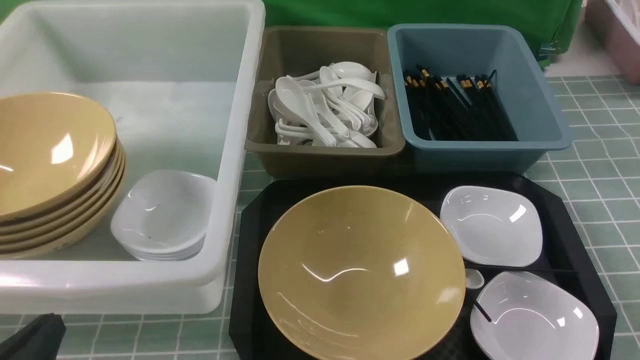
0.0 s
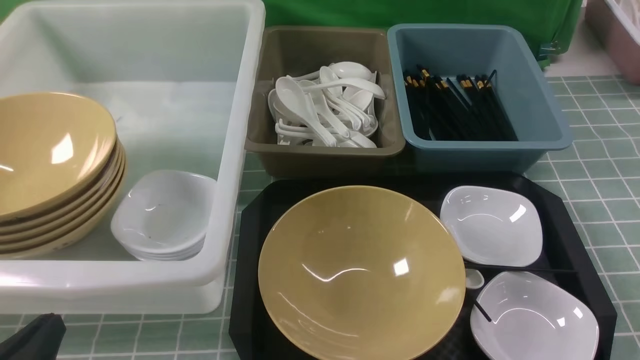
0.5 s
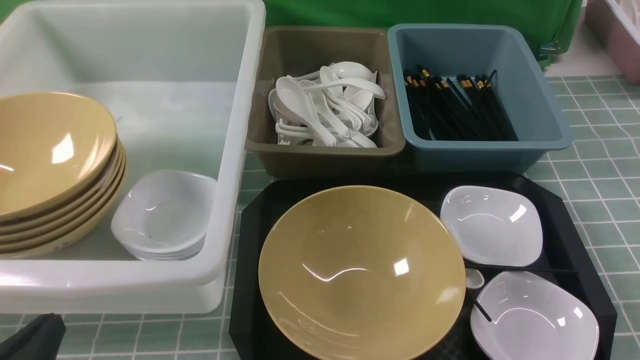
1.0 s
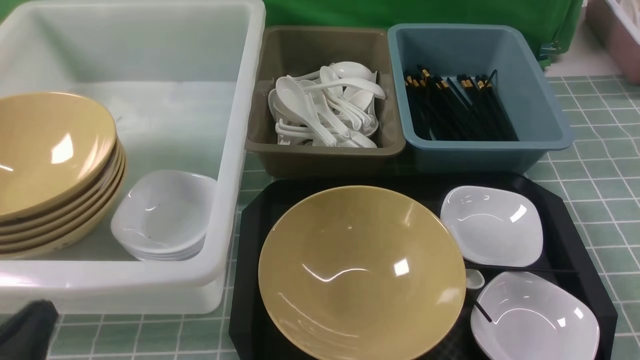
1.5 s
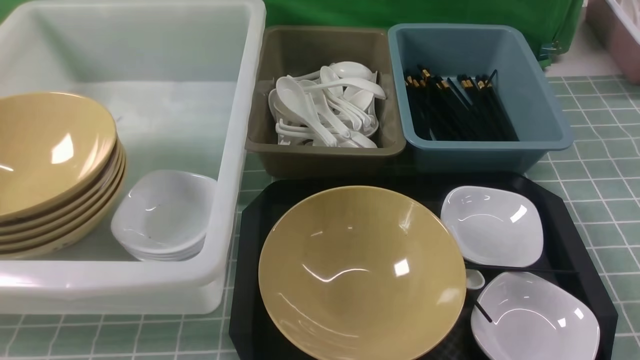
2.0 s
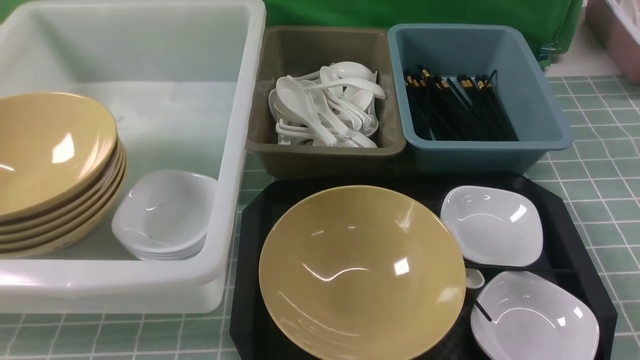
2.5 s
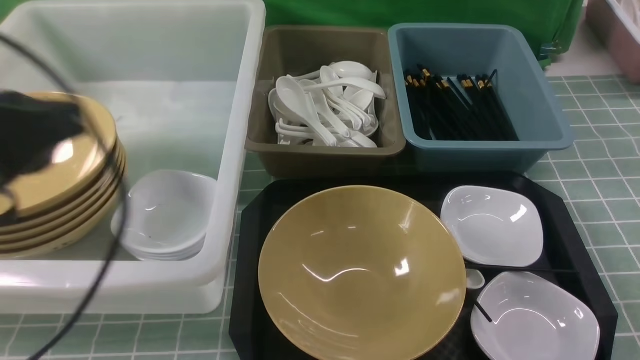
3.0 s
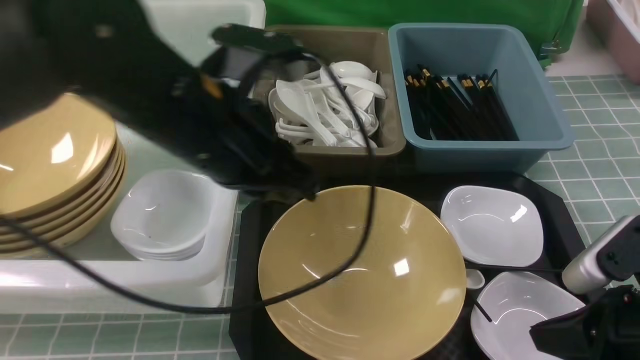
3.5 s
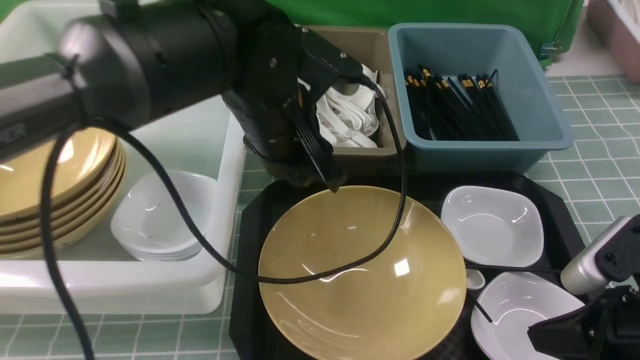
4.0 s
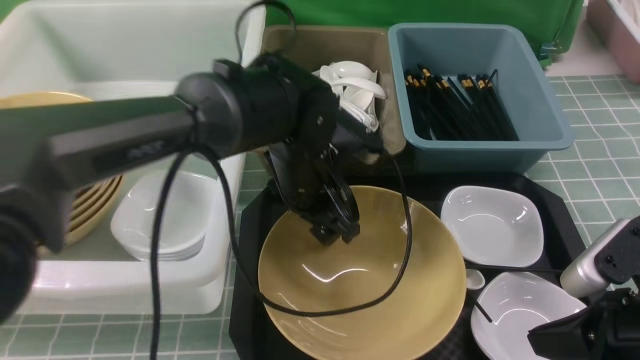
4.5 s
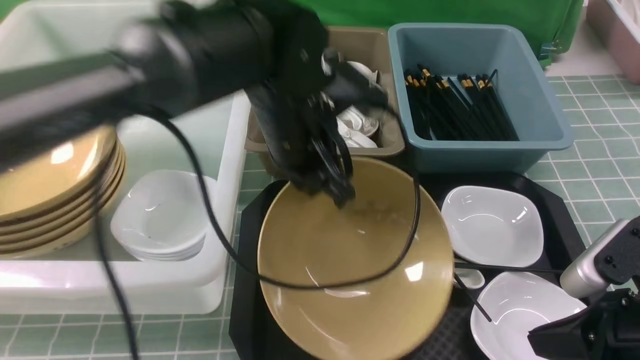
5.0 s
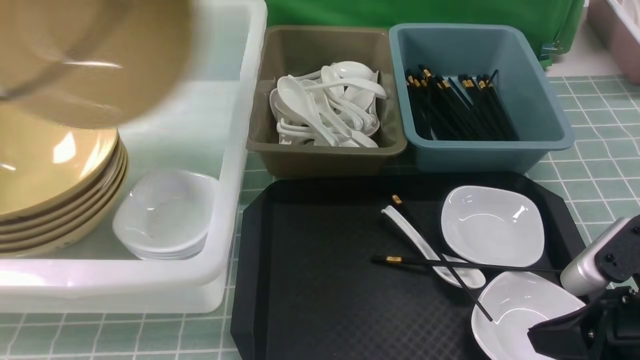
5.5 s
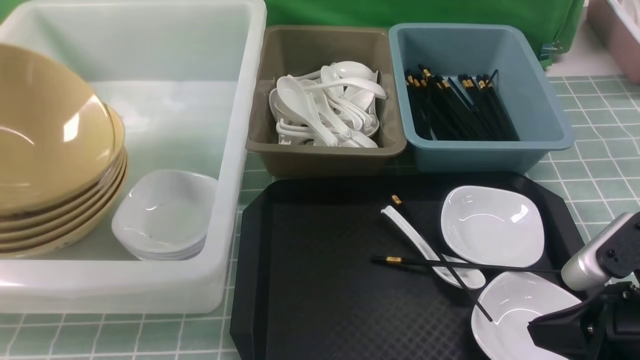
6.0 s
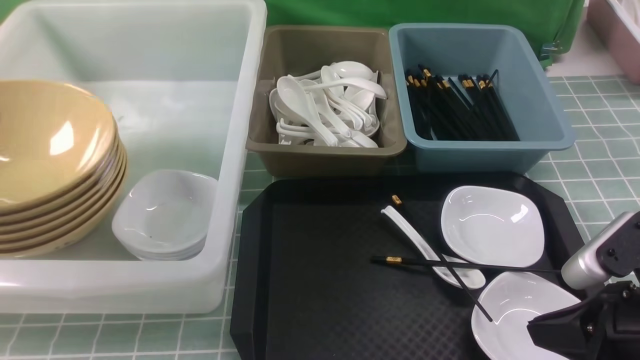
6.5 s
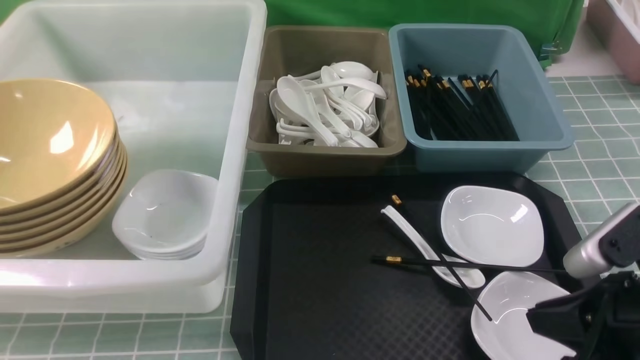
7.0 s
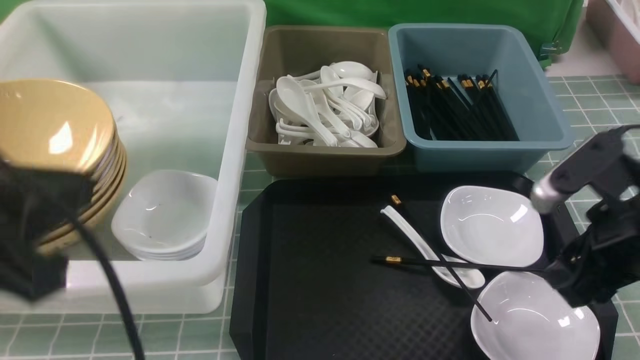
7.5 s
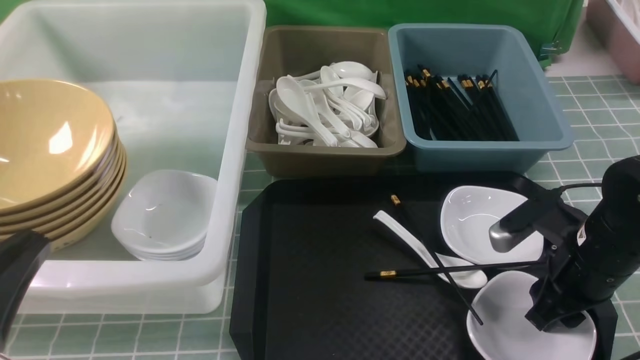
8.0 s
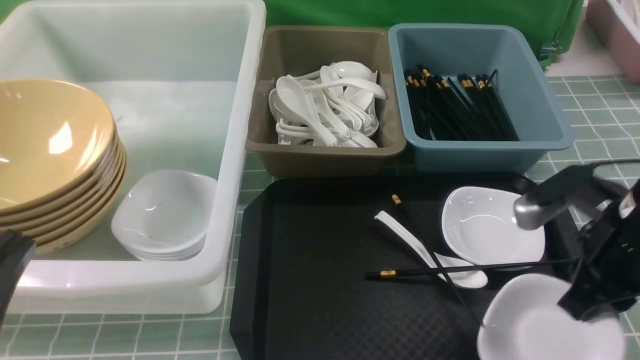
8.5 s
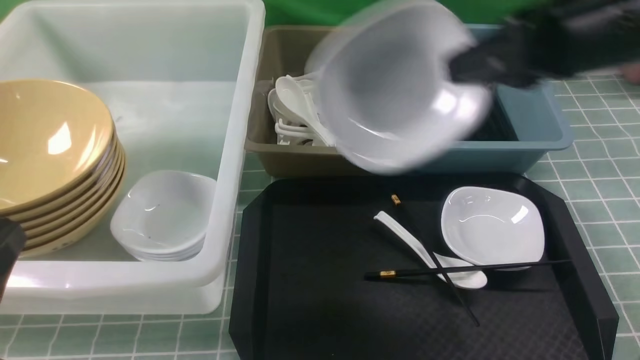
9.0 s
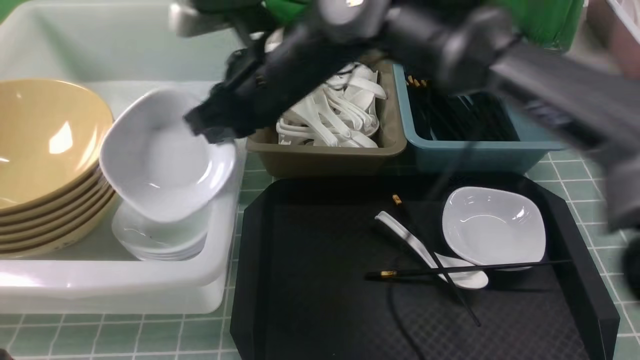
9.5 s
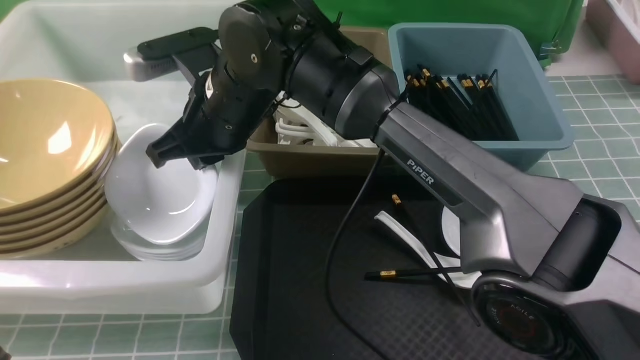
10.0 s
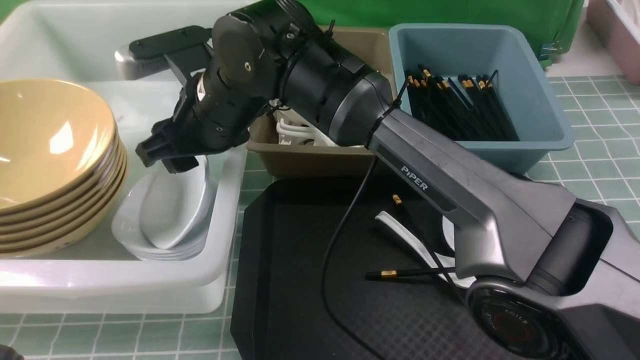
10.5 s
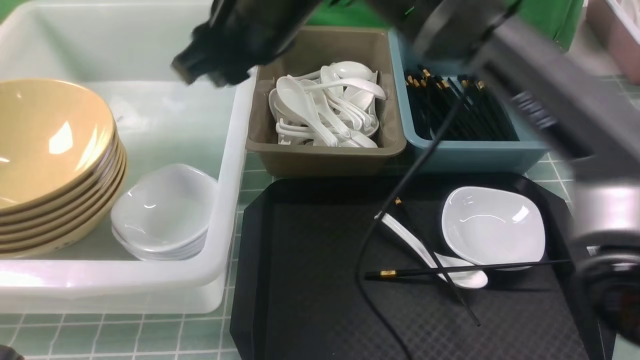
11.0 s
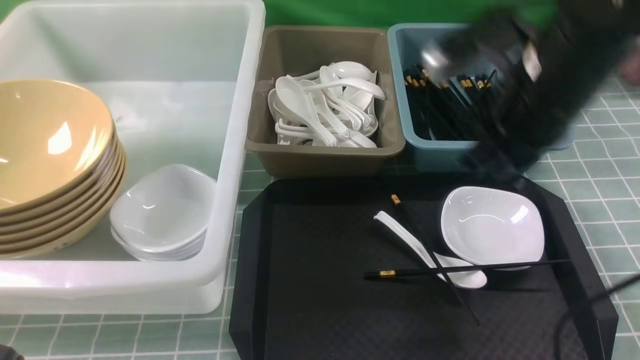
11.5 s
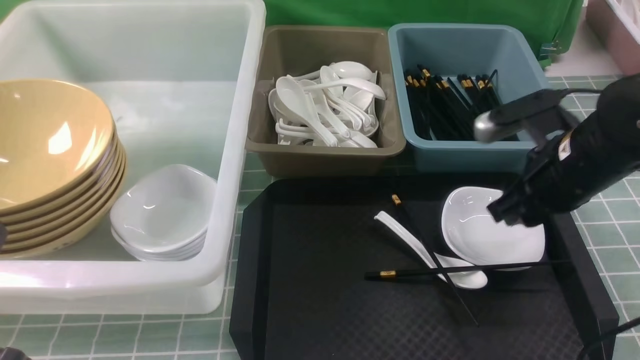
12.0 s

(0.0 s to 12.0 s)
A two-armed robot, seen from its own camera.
Task of the whole recording: on blue table put chopsticks spoon bowls plates into blue grey white boxes.
Step, 0.0 s - 5.0 s: use the left arm to grab the yellow noodle bowl on the left.
Step, 5.5 s - 6.0 s: use the left arm to put the noodle bowl into the large storage box on the left.
Step, 7.0 s - 8.0 s: use the right arm to grab the plate.
Step, 8.5 s - 10.0 s: use the right arm to put the plate into the large storage box on the left.
0.0 s - 2.0 s: The left gripper moves upward, some 10 cm.
2.0 s - 4.0 s: The left gripper goes some 35 cm forward and to the right, and opens up; the right gripper shifts about 10 cm forward and to the left.
4.0 s - 6.0 s: The left gripper goes approximately 35 cm to the left, and closes.
6.0 s - 8.0 s: The right gripper heads forward and downward, covering approximately 10 cm, and opens, while the left gripper travels backward and to the right by roughly 25 cm, and opens, then closes once more.
8.0 s - 10.0 s: The right gripper travels to the left by roughly 35 cm, and closes its fingers.
10.0 s - 12.0 s: The right gripper shifts some 30 cm to the right, and opens its fingers.

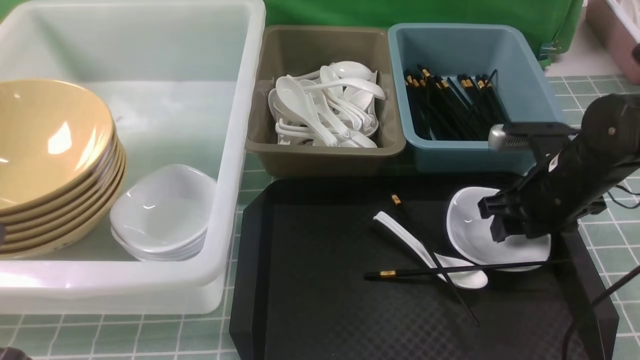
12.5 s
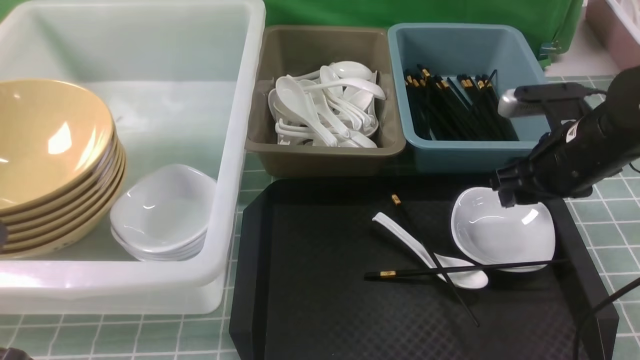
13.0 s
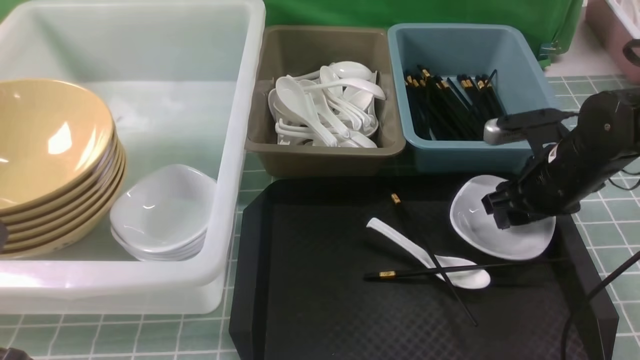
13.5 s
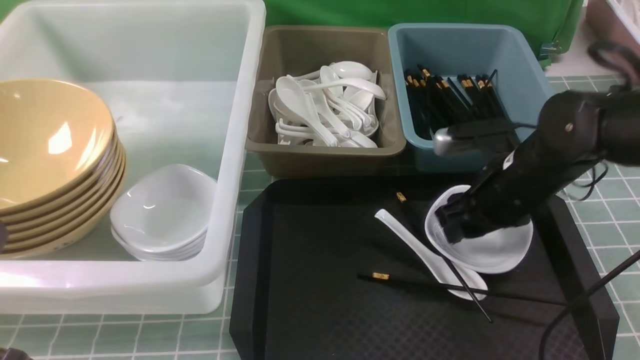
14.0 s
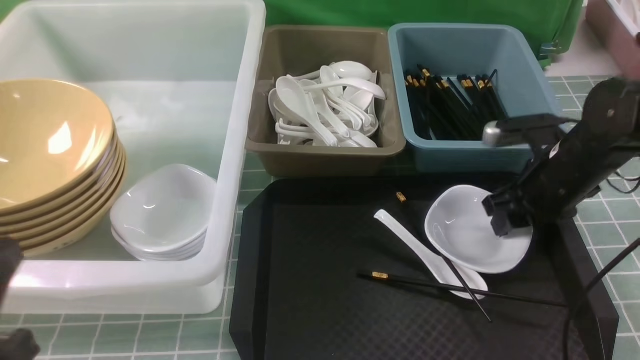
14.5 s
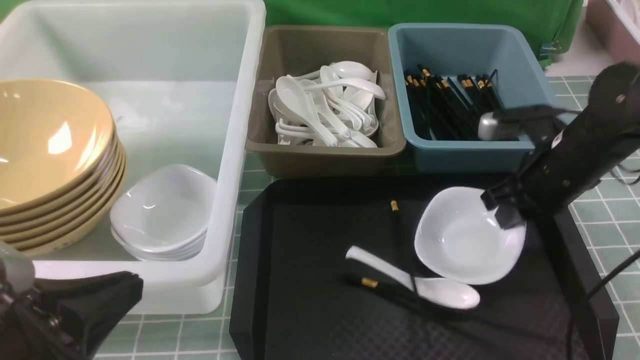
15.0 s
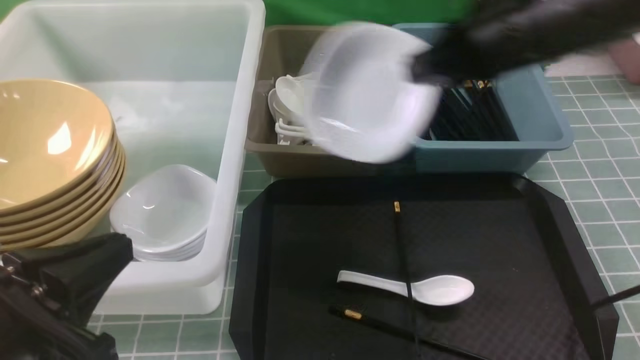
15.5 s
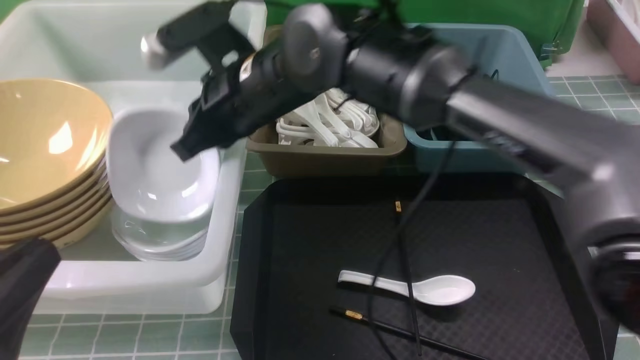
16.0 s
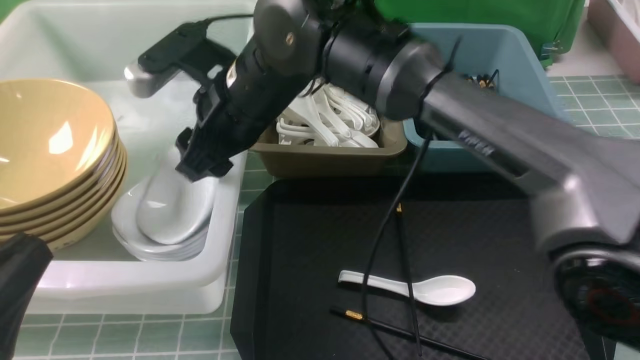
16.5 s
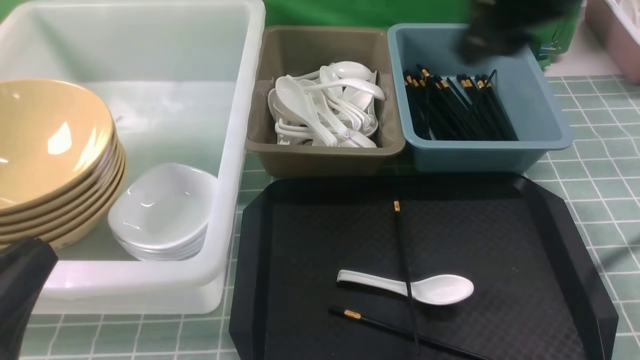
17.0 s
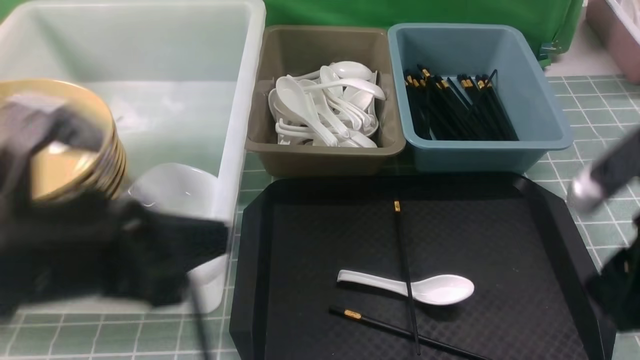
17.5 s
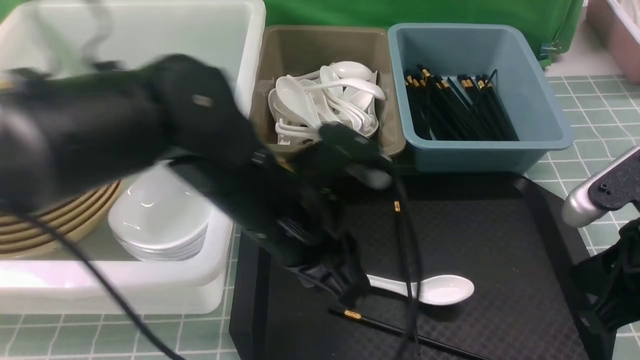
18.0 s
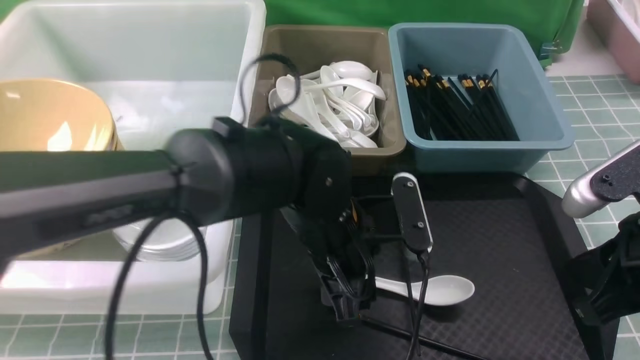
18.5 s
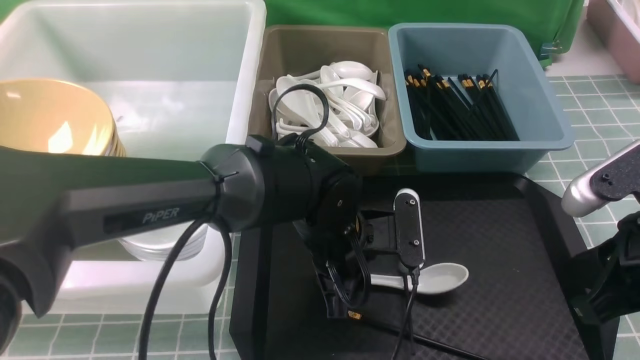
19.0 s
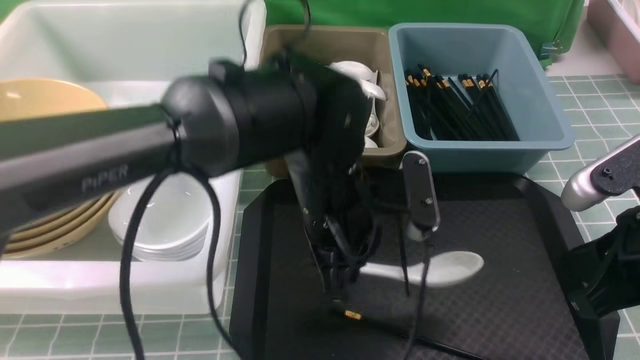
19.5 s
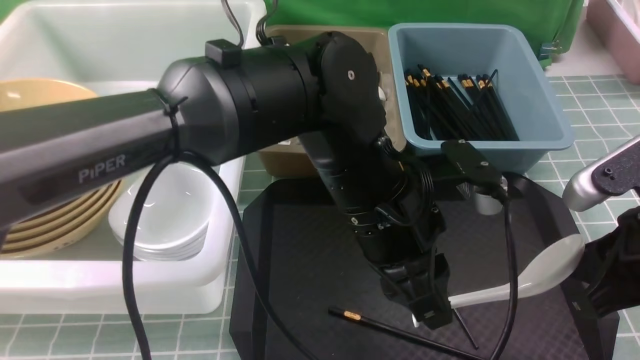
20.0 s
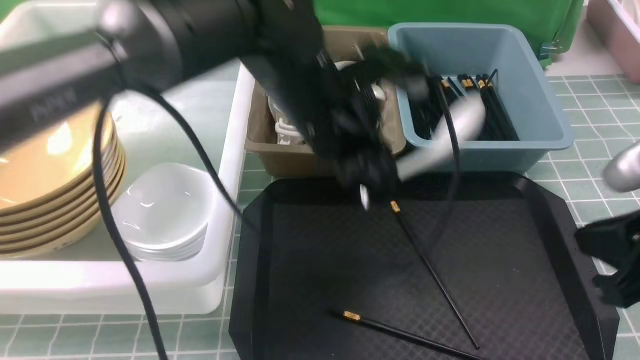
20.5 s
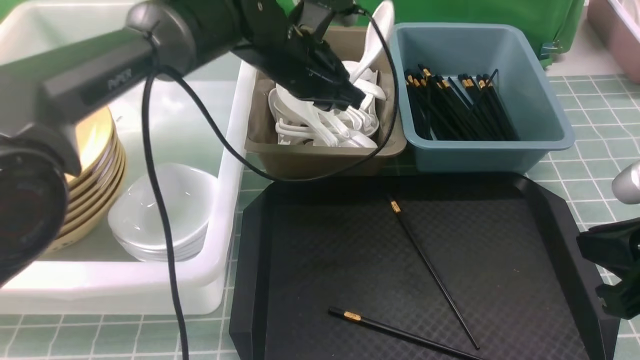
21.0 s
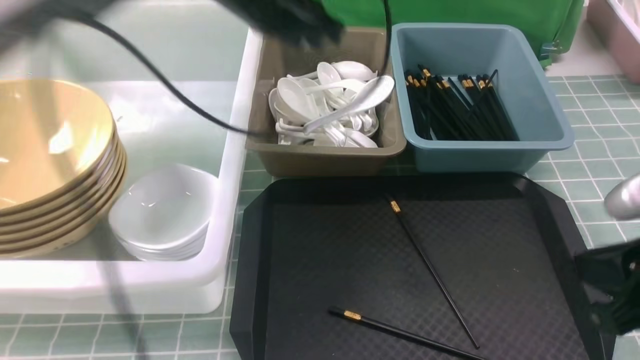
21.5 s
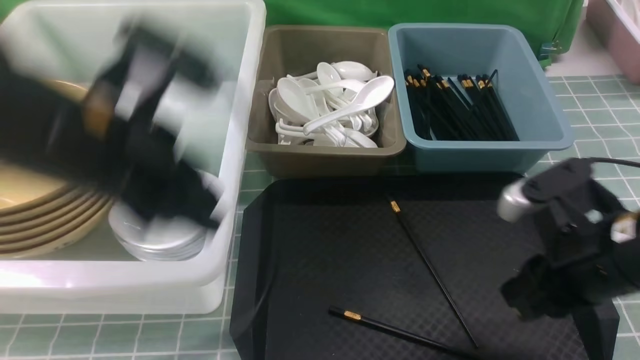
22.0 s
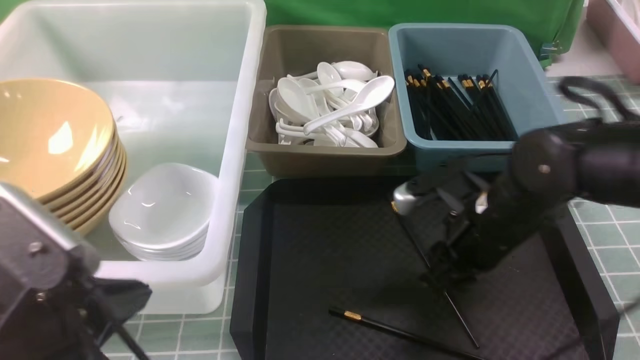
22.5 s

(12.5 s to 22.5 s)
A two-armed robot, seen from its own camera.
Task of the whole recording: on blue table put chopsticks spoon bowls plates into blue grey white boxes.
Step, 12.5 s - 15.0 s: use the right arm to grab the plate.
Step, 15.5 s - 16.5 s: use the right arm to put the plate into the large storage box on the left.
Step, 17.0 s - 19.5 s: use the left arm to grab the soup spoon in the middle.
Step, 20.0 s - 21.0 s: use the left arm to put the soup spoon into the small storage box in the middle.
14.5 s - 16.5 s: The right gripper goes about 30 cm to the left and upward, and closes and opens again.
16.5 s - 18.5 s: The right gripper travels to the right and backward by approximately 35 cm, and closes. The left gripper heads to the right and forward, covering about 30 cm, and opens.
18.5 s - 20.5 s: The left gripper travels upward and forward by about 10 cm, and closes its fingers.
20.5 s - 22.5 s: The right gripper goes some 20 cm forward, downward and to the left, and opens its fingers. The left gripper goes about 30 cm backward and to the left, and opens, then closes once more.
